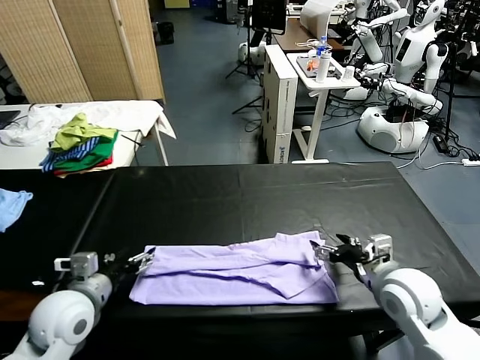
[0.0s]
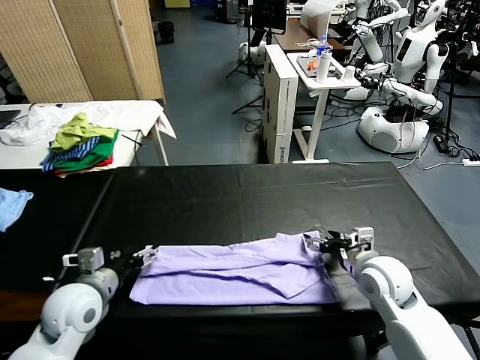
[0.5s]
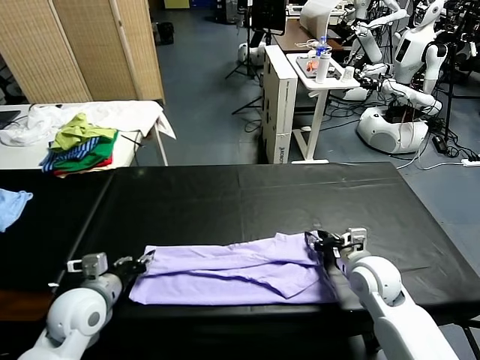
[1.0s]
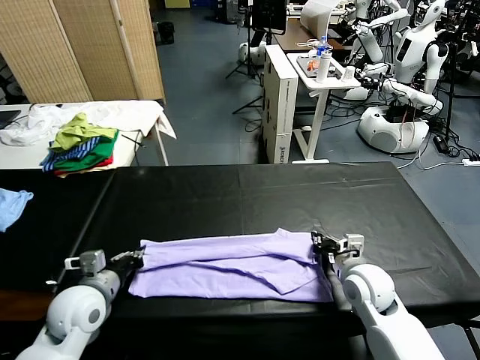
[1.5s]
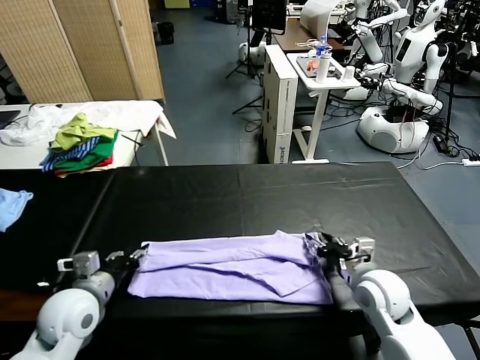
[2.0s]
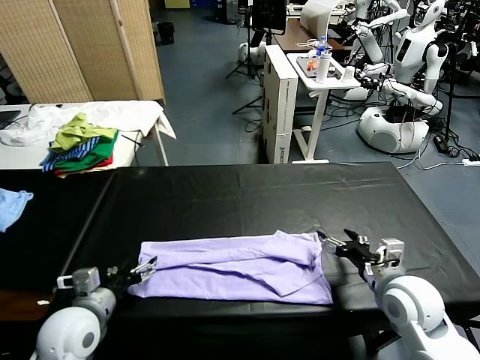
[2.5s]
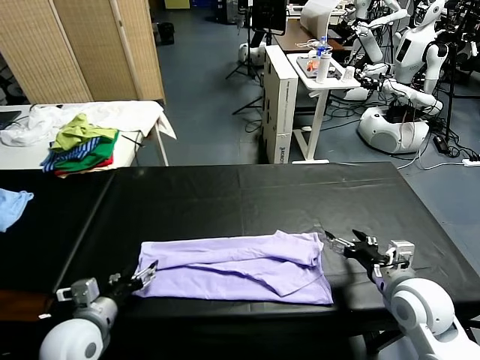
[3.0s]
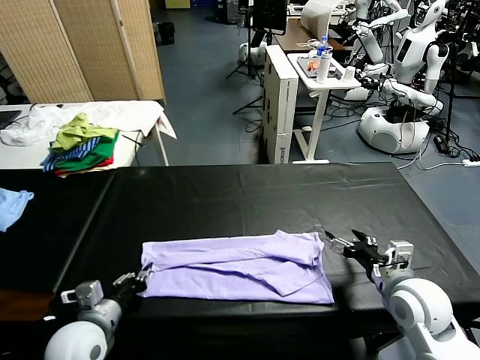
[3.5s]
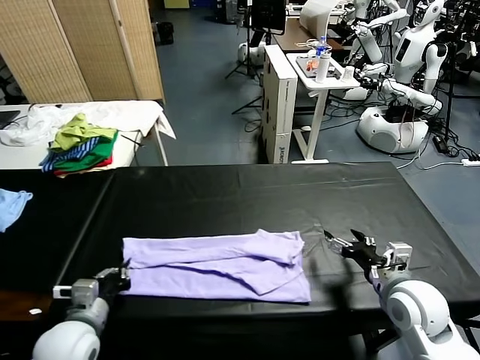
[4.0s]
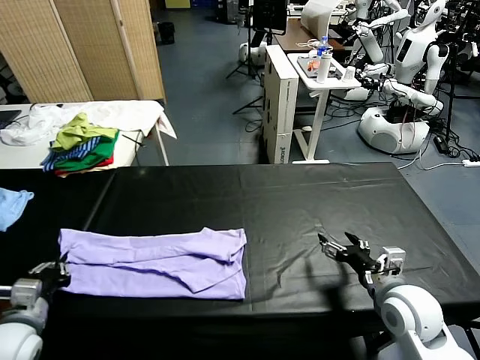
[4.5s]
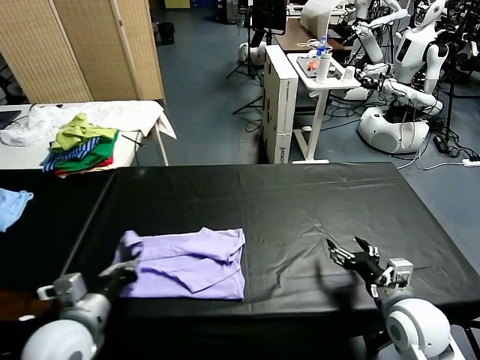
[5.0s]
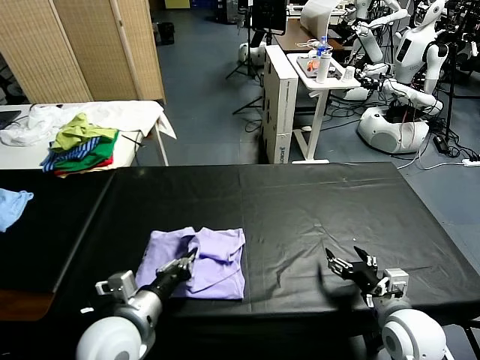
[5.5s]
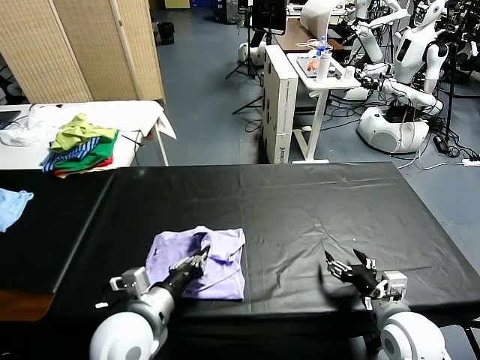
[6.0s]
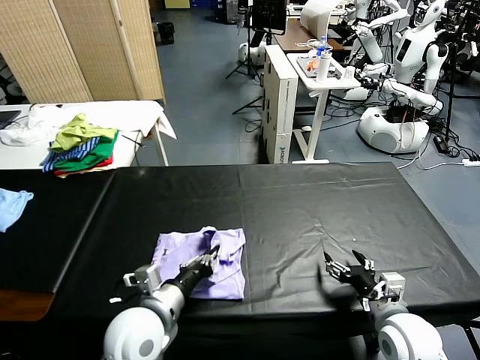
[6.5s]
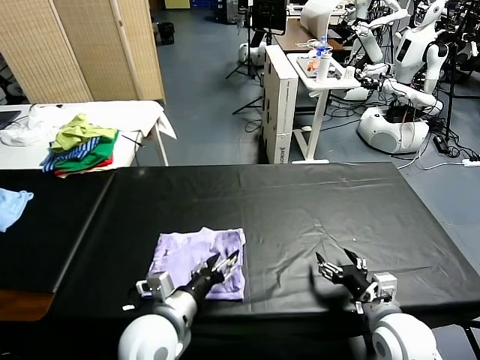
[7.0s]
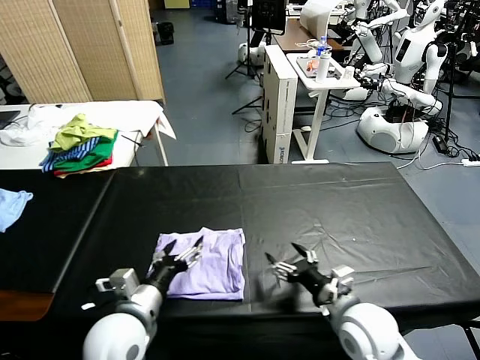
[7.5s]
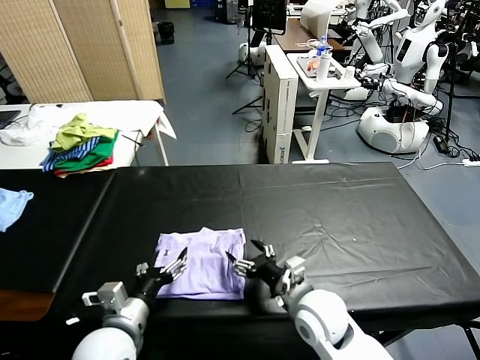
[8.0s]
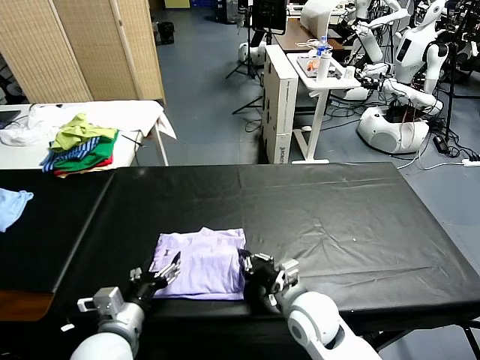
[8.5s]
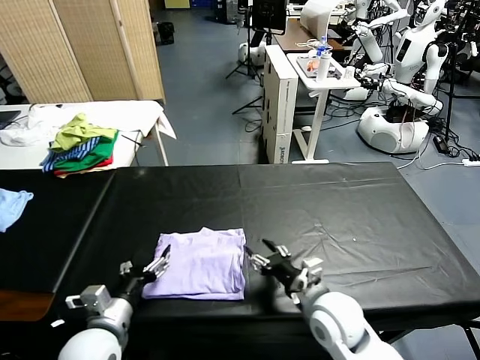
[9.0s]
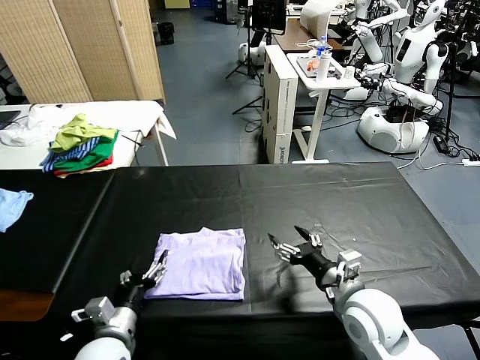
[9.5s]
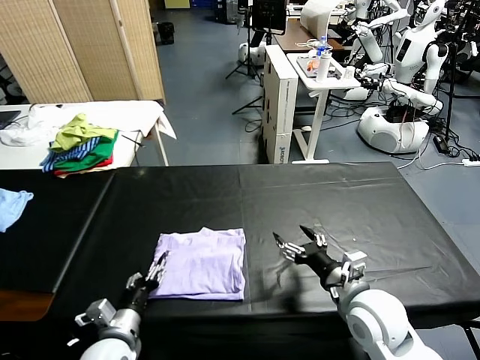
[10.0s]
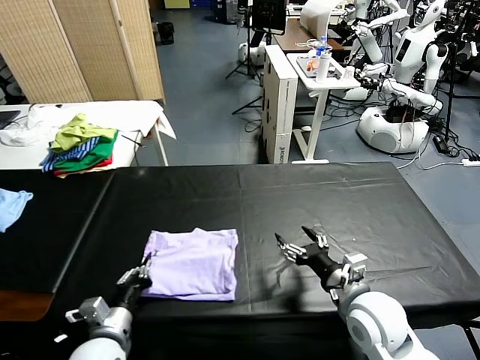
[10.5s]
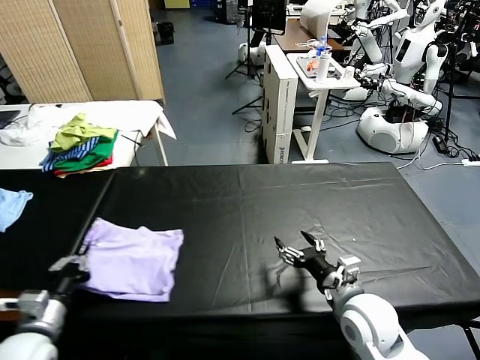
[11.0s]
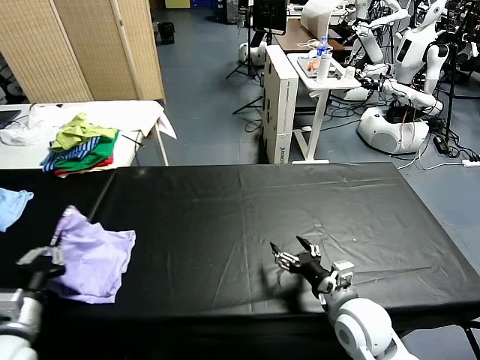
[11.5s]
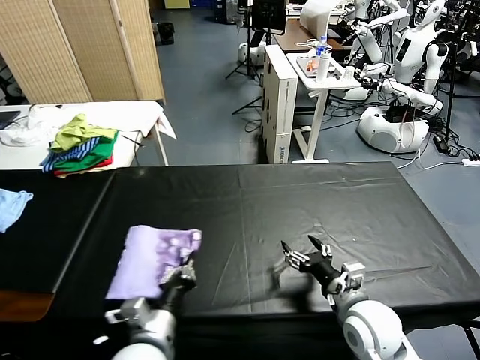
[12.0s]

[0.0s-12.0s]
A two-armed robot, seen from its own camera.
Task of the whole recording: fold and organize the clothes.
Step, 0.0s to 3.5s: use the left gripper to clamp the left edge of the fabric.
Step, 4.0s to 7.0s: use the left gripper to drag the left edge of the fabric to the left and folds it over the right edge.
0.0s to 2.0s: The right gripper closes up, while the left gripper shifts by roughly 5 cm, and closes.
2.0s to 4.0s: The left gripper goes about 5 cm backward, and opens and closes again. The right gripper changes place by roughly 5 cm, and opens its fingers.
4.0s to 6.0s: The left gripper travels to the right and upward by approximately 10 cm, while the right gripper ends up some 5 cm from where it was.
6.0s to 8.0s: The left gripper opens. Meanwhile the right gripper goes approximately 15 cm to the left.
8.0s to 10.0s: The right gripper shifts roughly 10 cm to the right, and closes, then opens again, while the left gripper is displaced downward by approximately 10 cm.
10.0s to 12.0s: The left gripper is displaced upward by approximately 10 cm, reaches approximately 15 cm to the left, then returns, and closes.

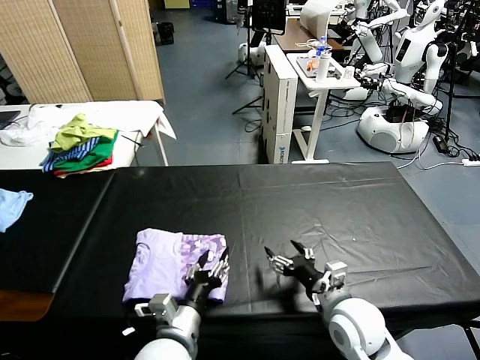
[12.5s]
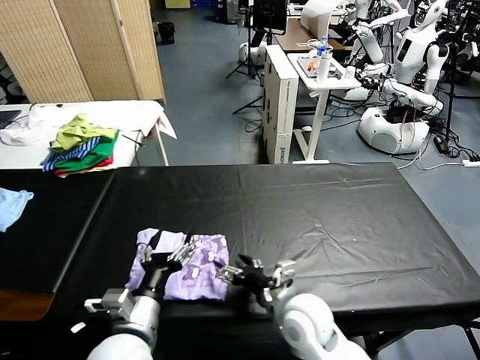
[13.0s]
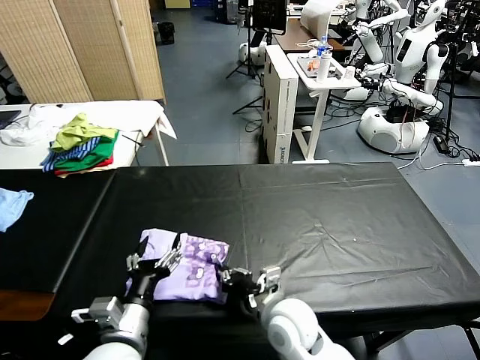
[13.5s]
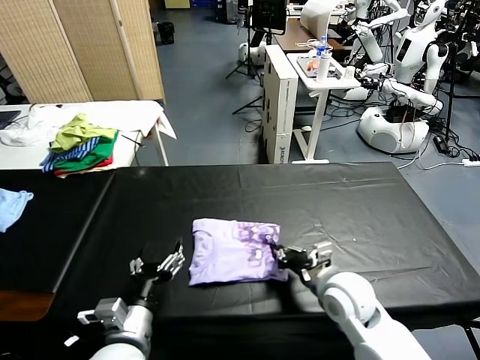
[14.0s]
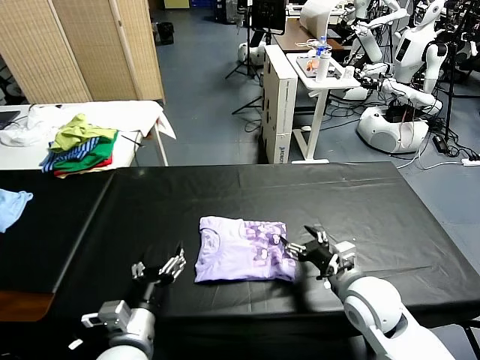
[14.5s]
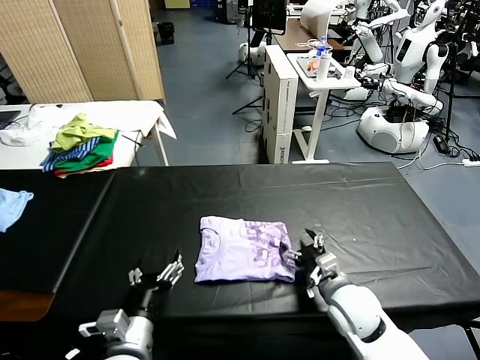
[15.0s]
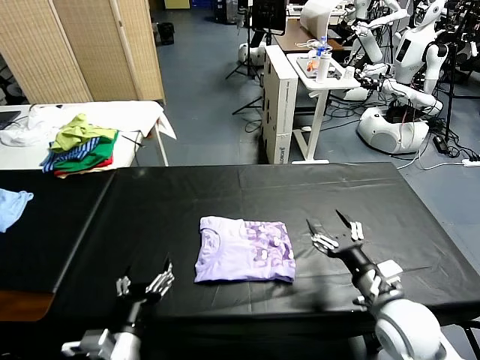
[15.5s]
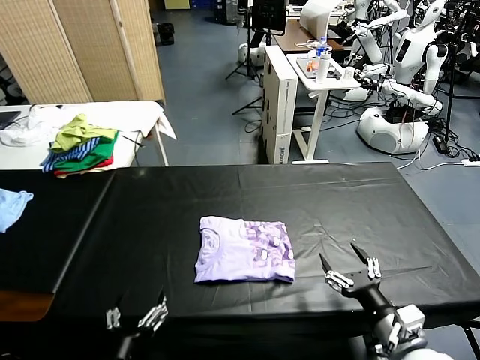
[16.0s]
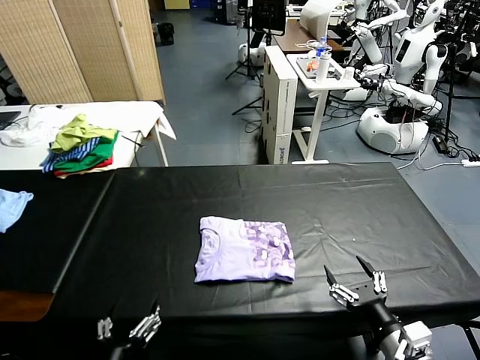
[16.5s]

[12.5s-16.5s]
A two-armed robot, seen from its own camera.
Task of the whole recording: fold and organize the clothes.
Step, 13.0s to 14.0s: Drag the clothes to the center of the table.
12.5s to 14.5s: The left gripper goes some 5 cm to the left, and opens its fingers. The right gripper moves roughly 15 cm to the left and comes back, and closes, then reopens.
14.5s to 16.5s: The grippers both shift backward by approximately 15 cm.
